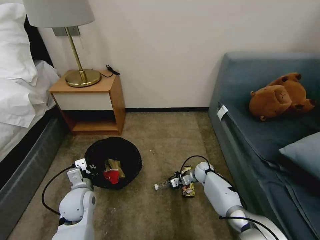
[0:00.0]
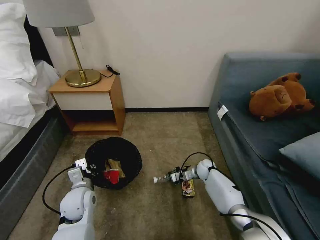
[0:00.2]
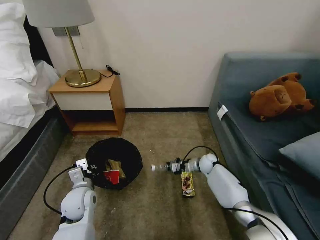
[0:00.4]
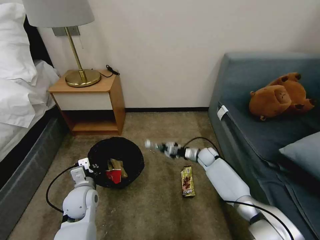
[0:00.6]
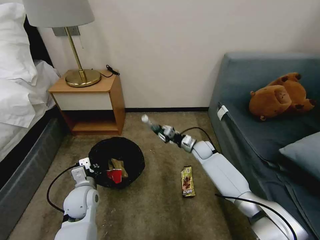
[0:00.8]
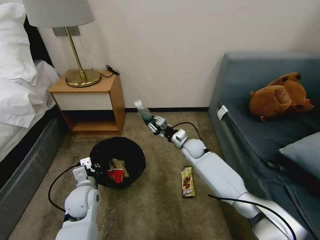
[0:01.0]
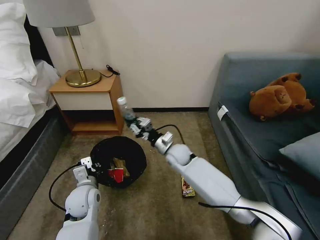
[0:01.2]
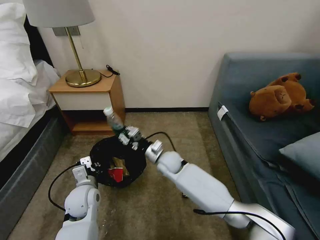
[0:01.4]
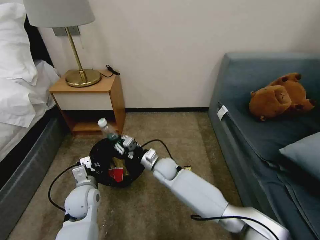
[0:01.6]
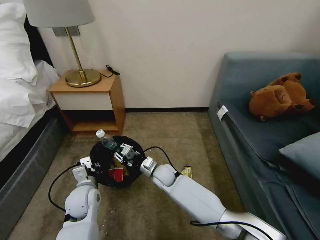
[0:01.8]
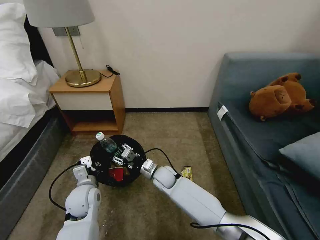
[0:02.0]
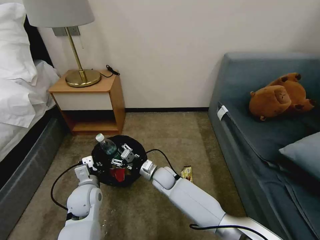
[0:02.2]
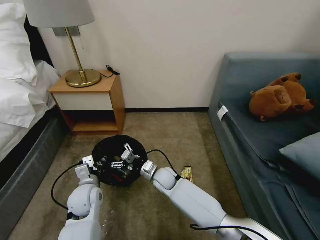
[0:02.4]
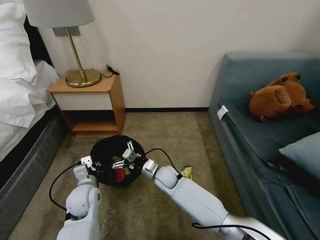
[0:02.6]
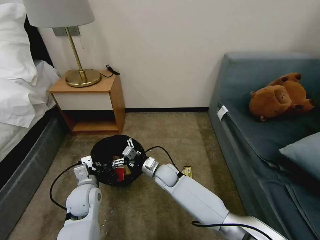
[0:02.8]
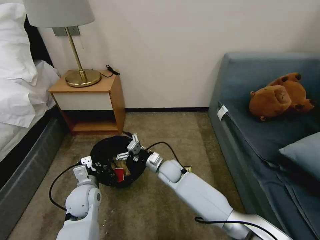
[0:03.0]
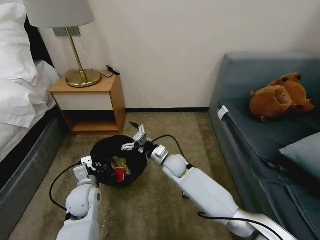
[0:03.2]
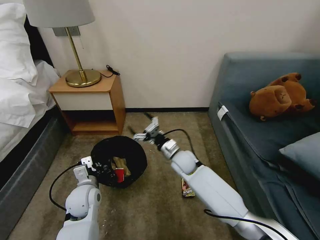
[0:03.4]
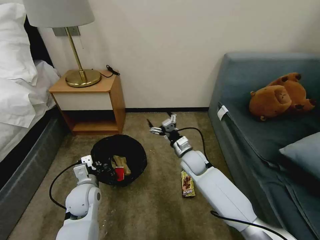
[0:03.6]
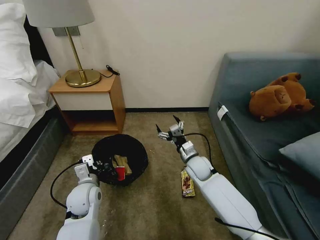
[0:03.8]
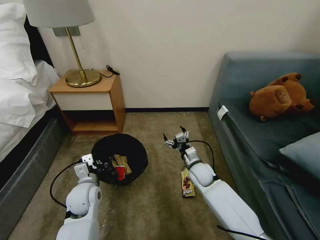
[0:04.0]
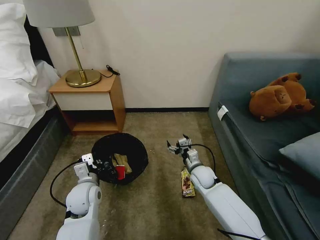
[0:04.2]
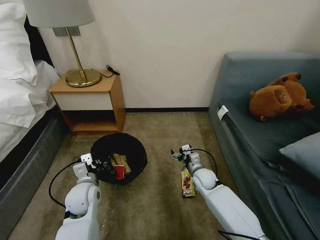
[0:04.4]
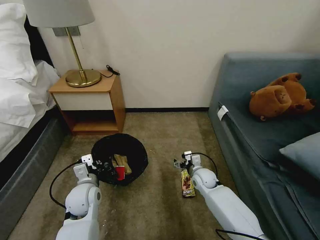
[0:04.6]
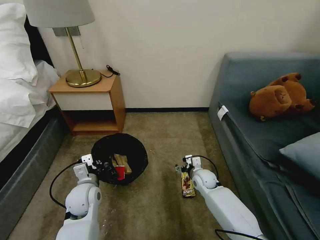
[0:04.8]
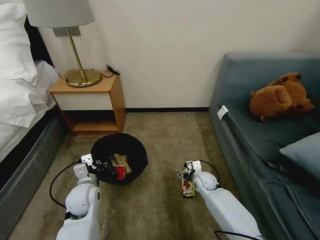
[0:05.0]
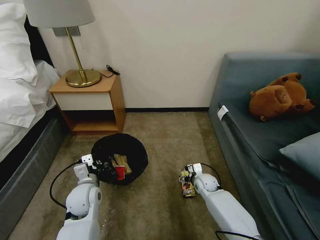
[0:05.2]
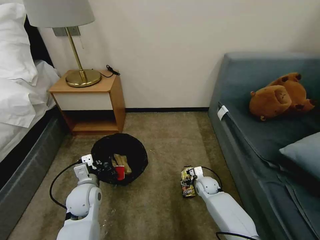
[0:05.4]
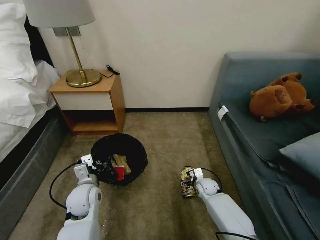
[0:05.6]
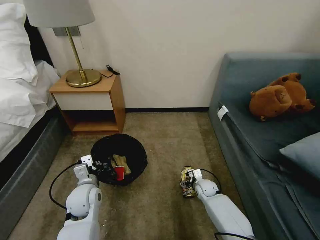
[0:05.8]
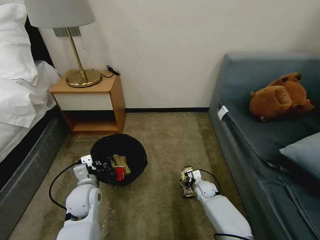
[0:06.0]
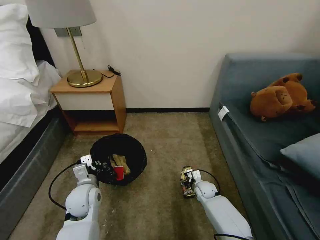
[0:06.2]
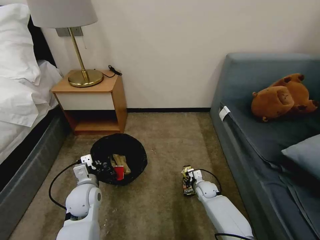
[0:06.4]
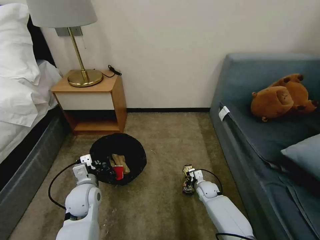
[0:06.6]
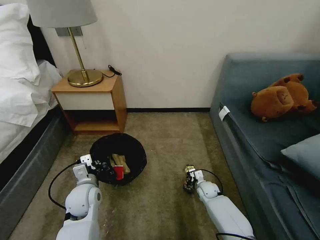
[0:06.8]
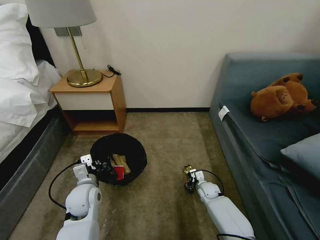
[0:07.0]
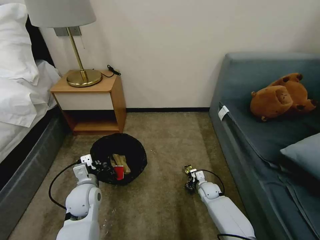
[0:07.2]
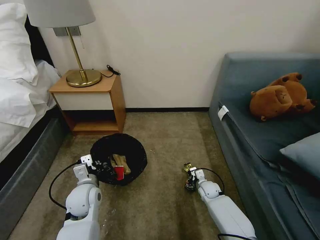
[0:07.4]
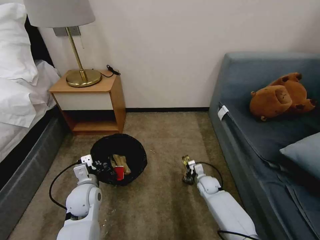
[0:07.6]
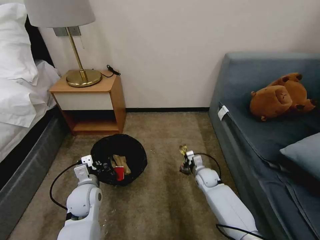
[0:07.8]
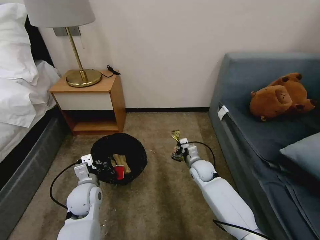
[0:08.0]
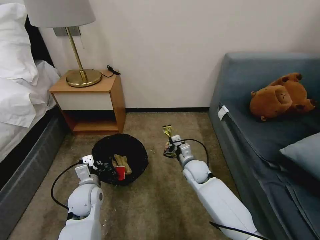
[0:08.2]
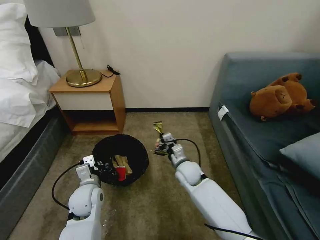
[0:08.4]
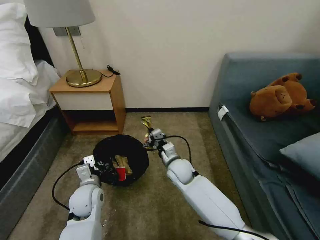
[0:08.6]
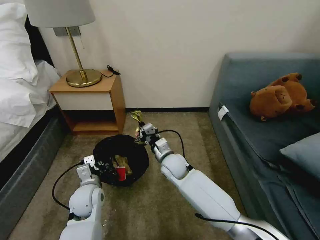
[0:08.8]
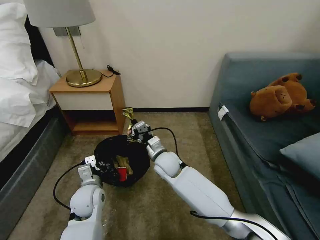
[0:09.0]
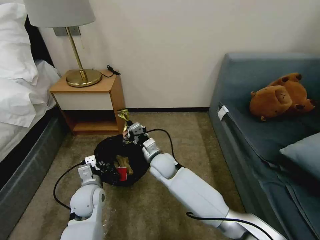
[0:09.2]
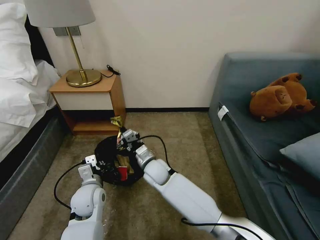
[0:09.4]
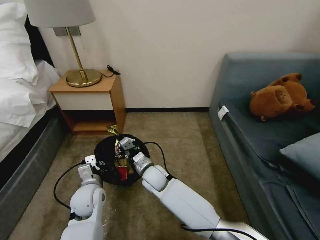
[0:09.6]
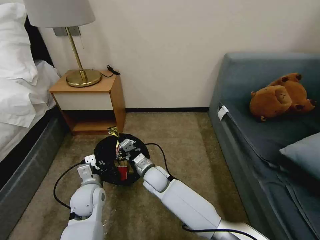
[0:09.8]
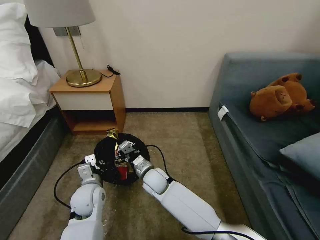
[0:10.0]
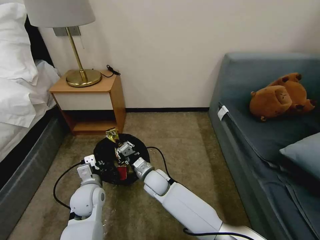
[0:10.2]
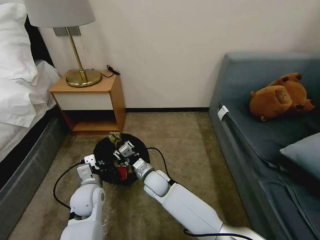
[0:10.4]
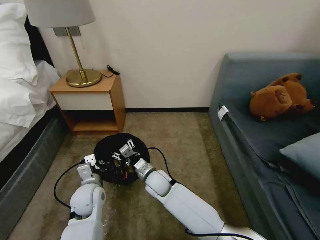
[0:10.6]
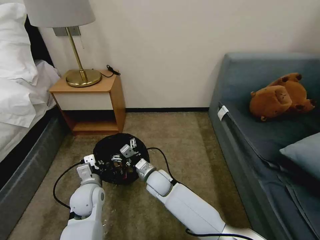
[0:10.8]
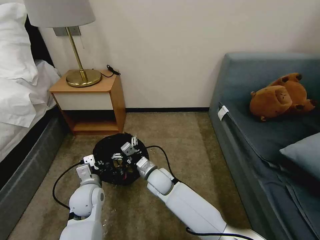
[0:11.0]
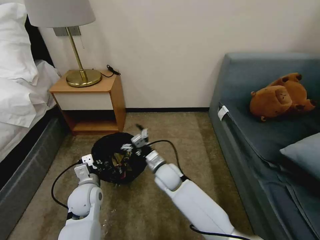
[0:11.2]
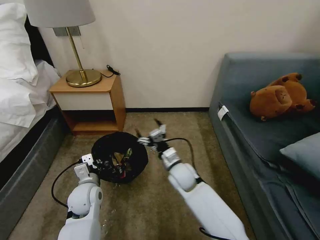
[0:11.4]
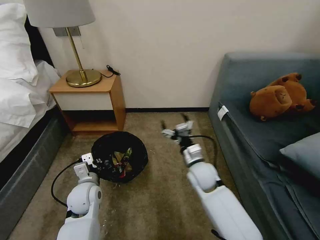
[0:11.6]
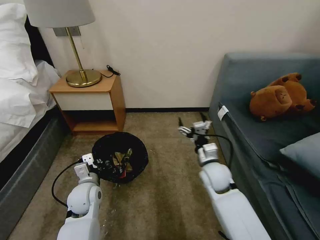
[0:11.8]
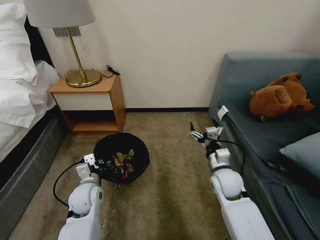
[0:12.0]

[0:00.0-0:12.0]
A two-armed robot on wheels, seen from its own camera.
Task of the whole recording: Pick up the trash bin, then pick up the garbage on the floor and place it into the trash bin.
0:00.0 to 0:01.6: The right gripper is displaced to the left and upward by some 25 cm.
0:01.6 to 0:03.0: The right gripper opens its fingers.
0:03.0 to 0:04.4: The right gripper shifts some 15 cm to the right.
0:04.4 to 0:06.0: The right gripper heads downward, covering some 10 cm.
0:06.0 to 0:07.6: The right gripper closes its fingers.
0:07.6 to 0:09.0: The right gripper goes some 30 cm to the left and upward.
0:09.0 to 0:10.4: The right gripper is displaced downward by approximately 5 cm, and opens.
0:10.4 to 0:12.0: The right gripper heads to the right, covering roughly 25 cm, and opens.

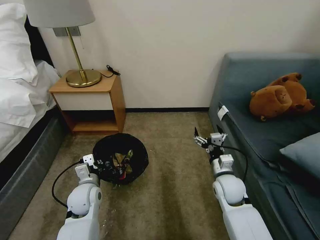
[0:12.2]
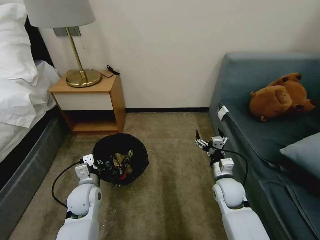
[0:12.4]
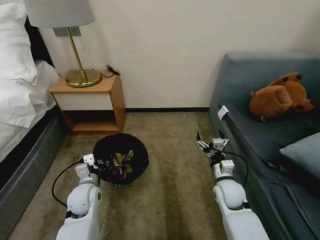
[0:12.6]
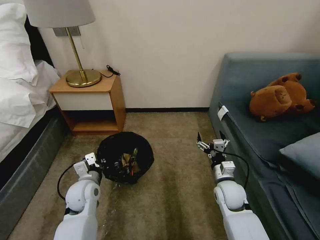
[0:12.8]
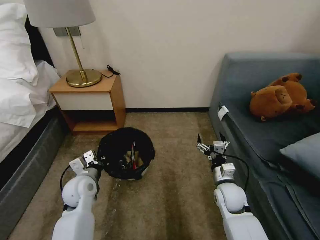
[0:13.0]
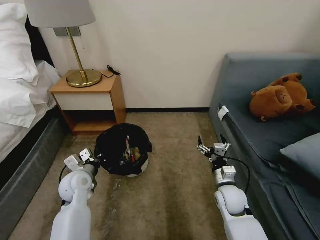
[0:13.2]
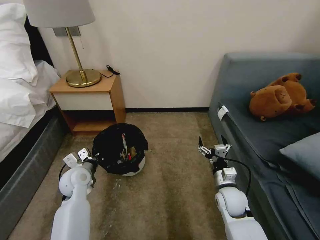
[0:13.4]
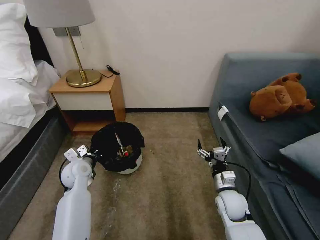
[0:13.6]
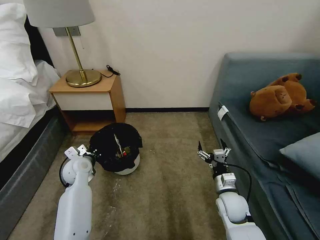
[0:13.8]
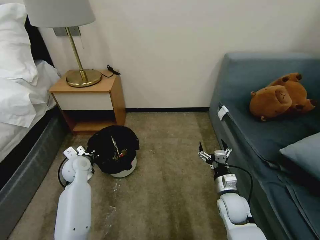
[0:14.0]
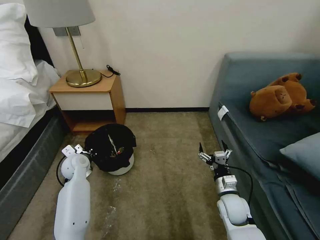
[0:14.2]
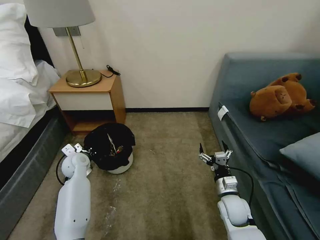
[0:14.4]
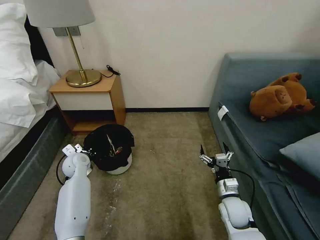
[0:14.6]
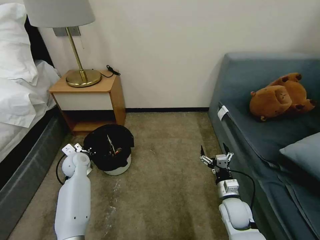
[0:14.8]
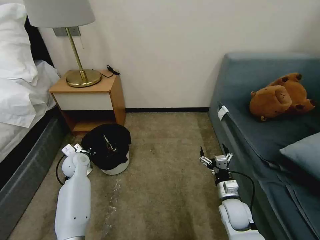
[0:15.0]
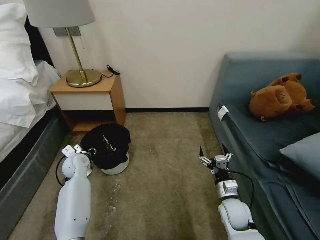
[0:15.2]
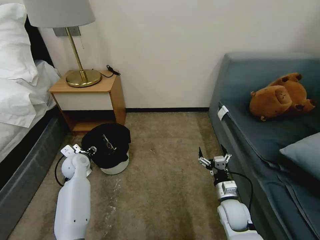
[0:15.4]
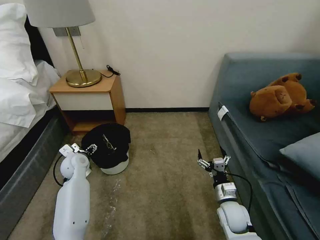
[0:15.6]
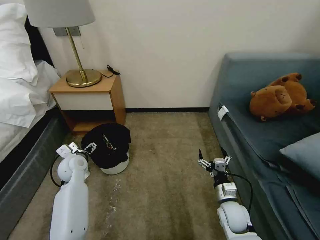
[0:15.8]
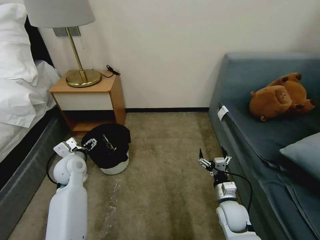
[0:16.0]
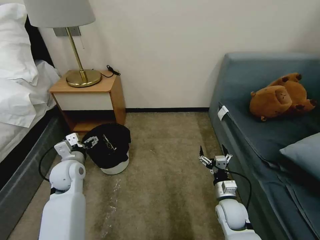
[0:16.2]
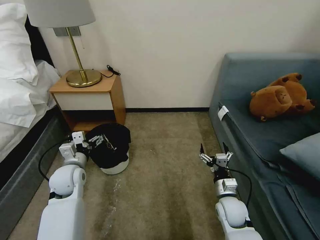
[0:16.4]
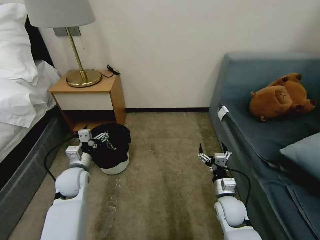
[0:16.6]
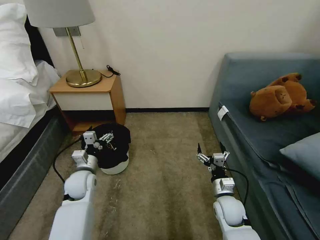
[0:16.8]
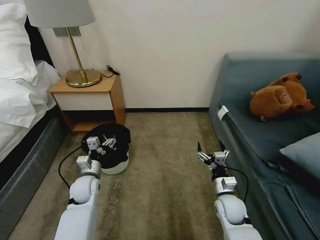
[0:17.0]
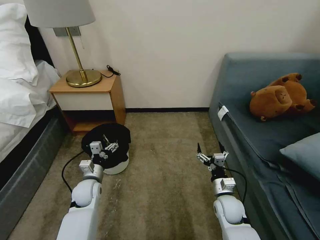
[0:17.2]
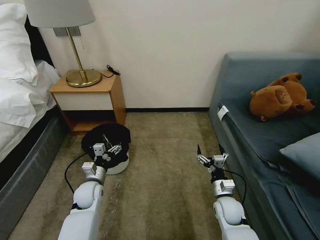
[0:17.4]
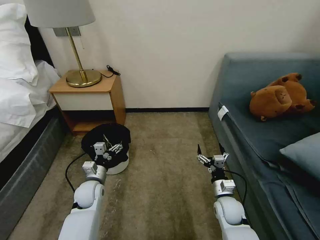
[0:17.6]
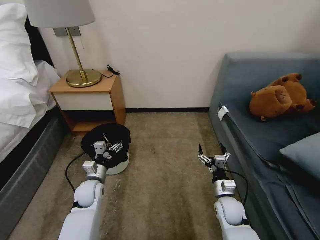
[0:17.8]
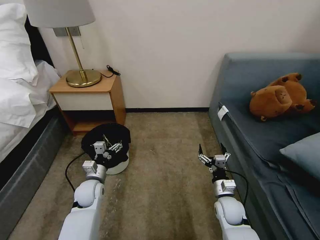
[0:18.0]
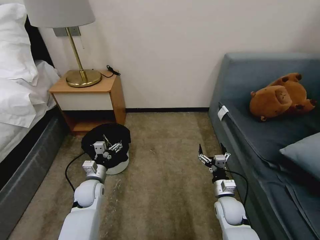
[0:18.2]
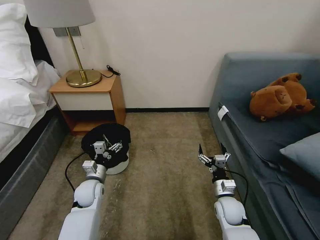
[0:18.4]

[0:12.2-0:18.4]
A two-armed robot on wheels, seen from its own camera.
Task of the whole recording: Pick up the trash bin, then pick up the garbage on the floor and place it into the trash bin.
0:12.2 to 0:13.8: The left gripper shifts roughly 10 cm forward and to the left; the right gripper changes place by roughly 5 cm.
0:13.8 to 0:15.4: The left gripper opens.
0:15.4 to 0:16.8: The left gripper is displaced backward by roughly 5 cm.
0:16.8 to 0:18.4: The left gripper moves roughly 5 cm.
